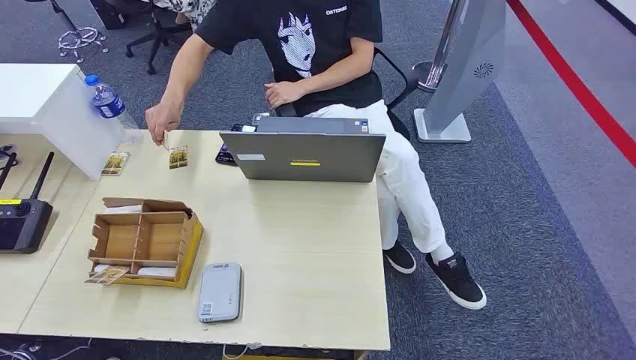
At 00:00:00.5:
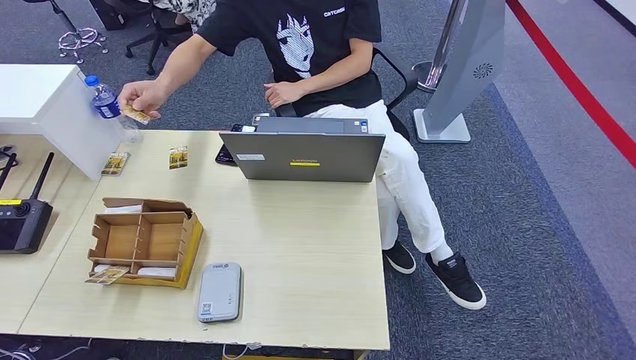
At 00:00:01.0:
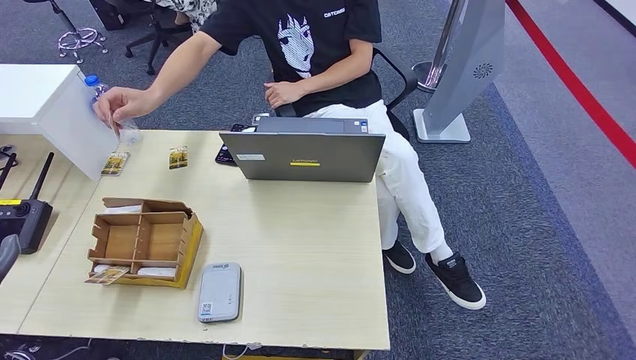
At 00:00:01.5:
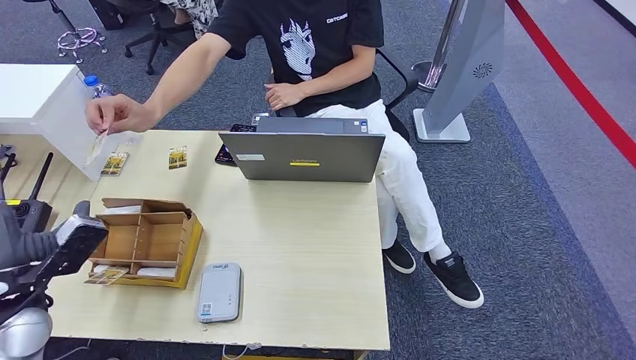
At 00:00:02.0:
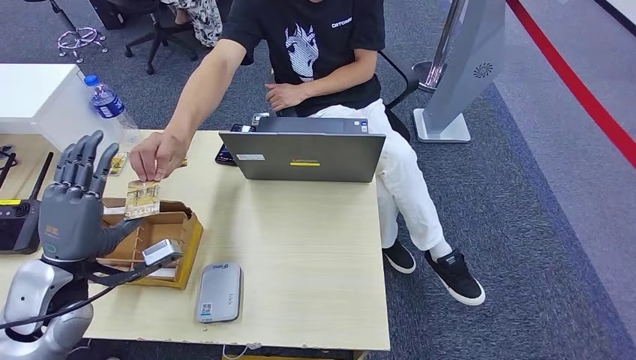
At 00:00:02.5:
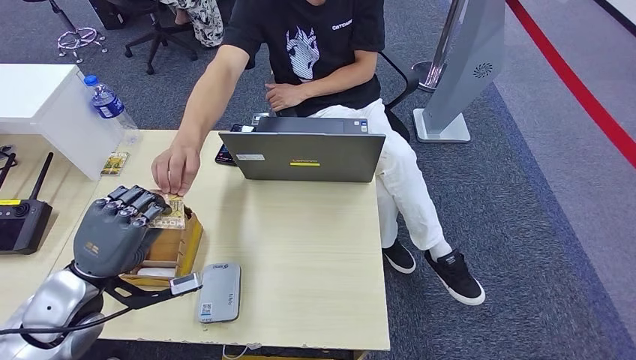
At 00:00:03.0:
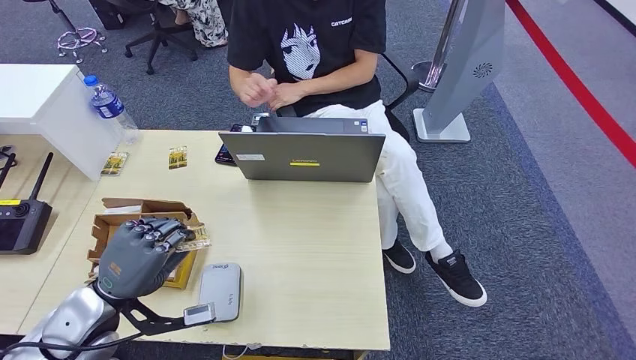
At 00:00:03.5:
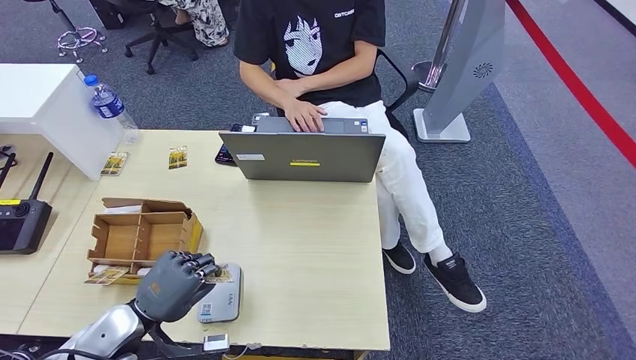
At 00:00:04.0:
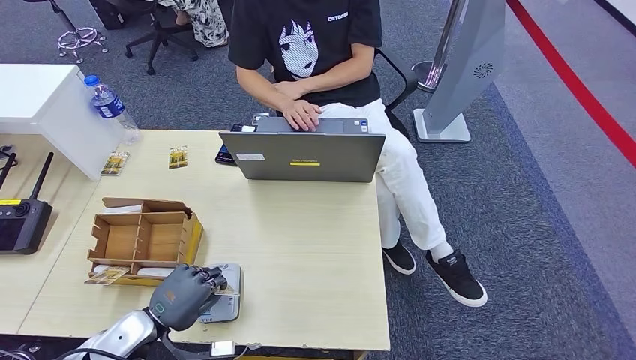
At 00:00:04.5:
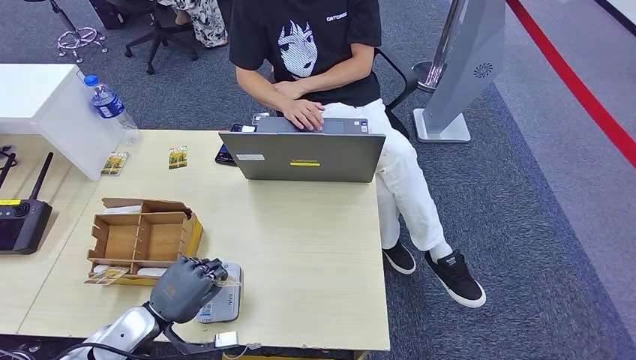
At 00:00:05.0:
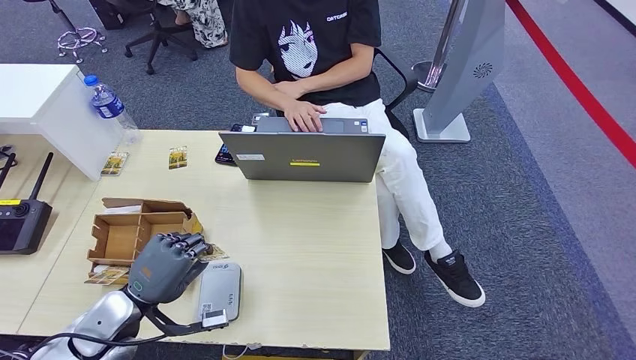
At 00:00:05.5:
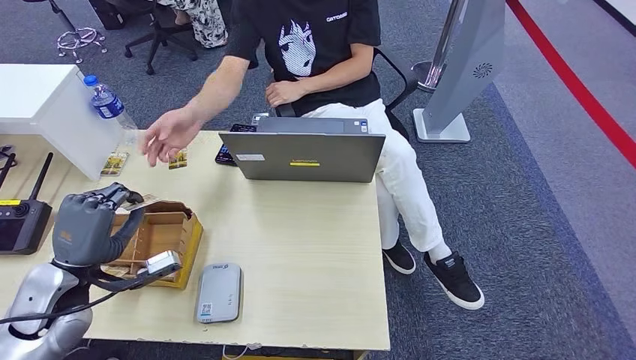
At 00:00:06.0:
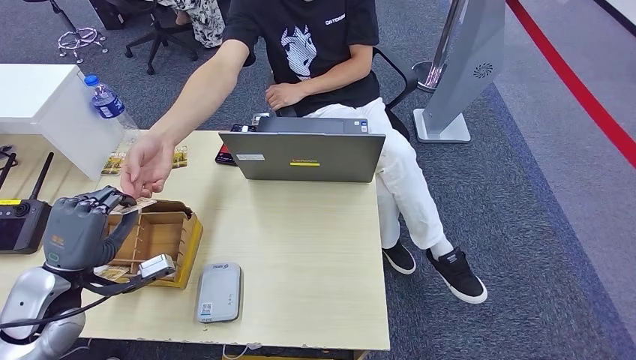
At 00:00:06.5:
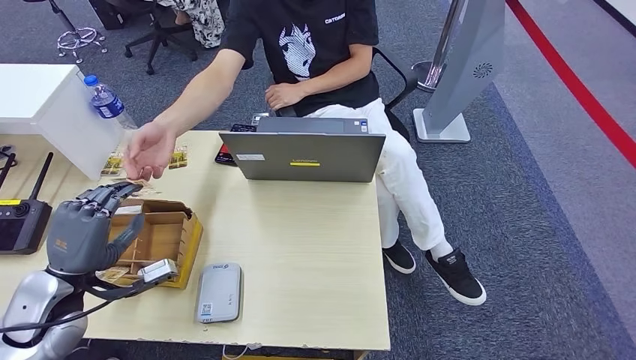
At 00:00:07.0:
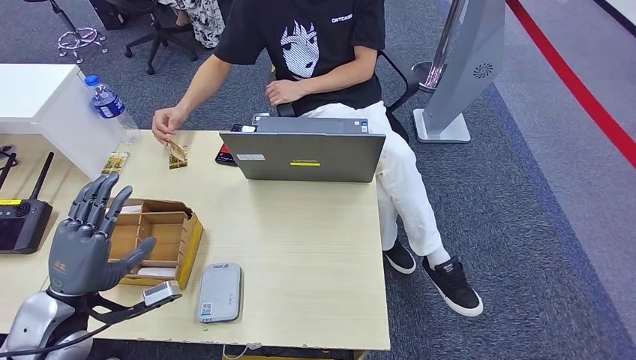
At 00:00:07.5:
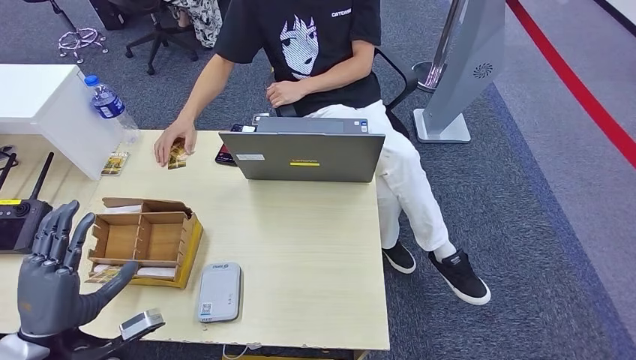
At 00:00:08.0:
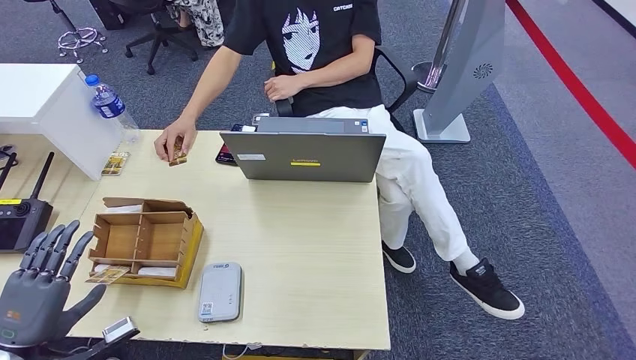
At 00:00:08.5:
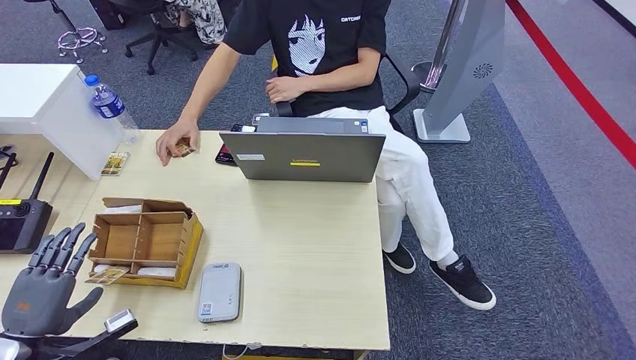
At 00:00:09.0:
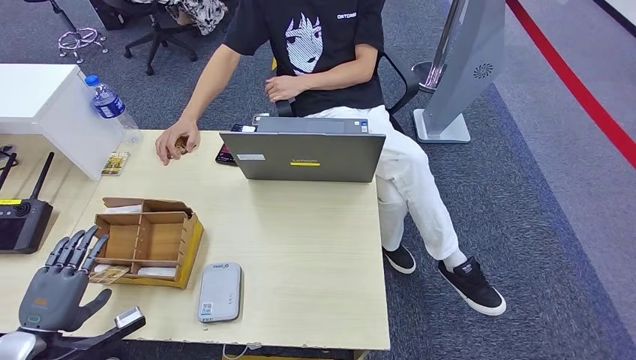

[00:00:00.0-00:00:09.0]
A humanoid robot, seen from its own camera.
Step, 00:00:00.0 to 00:00:02.5: Take the ID card from the person's hand.
Step, 00:00:03.0 to 00:00:03.5: Place the ID card on the card reader.
Step, 00:00:04.5 to 00:00:07.0: Hand the ID card to the person.
00:00:02.0 to 00:00:04.5: The left hand moves downward, some 15 cm.
00:00:04.5 to 00:00:07.0: The left hand heads upward and to the left, covering roughly 10 cm.
00:00:07.0 to 00:00:09.0: The left hand goes some 15 cm to the left, downward and backward.

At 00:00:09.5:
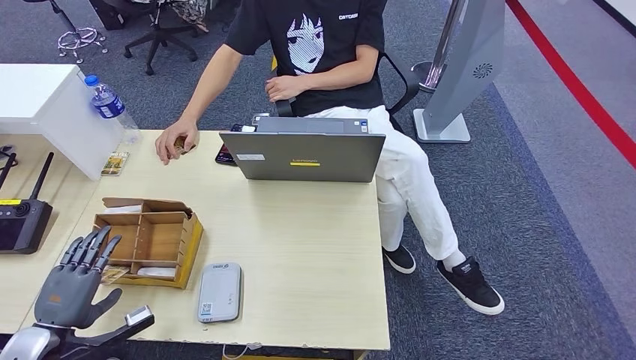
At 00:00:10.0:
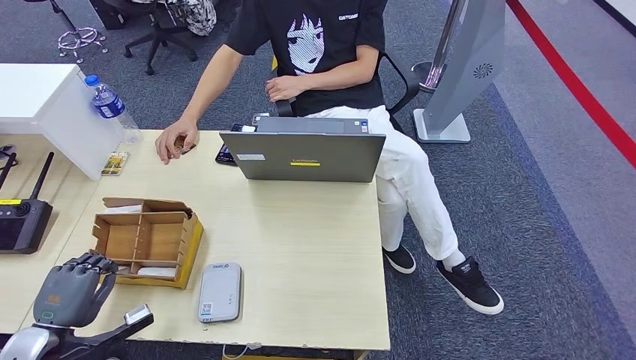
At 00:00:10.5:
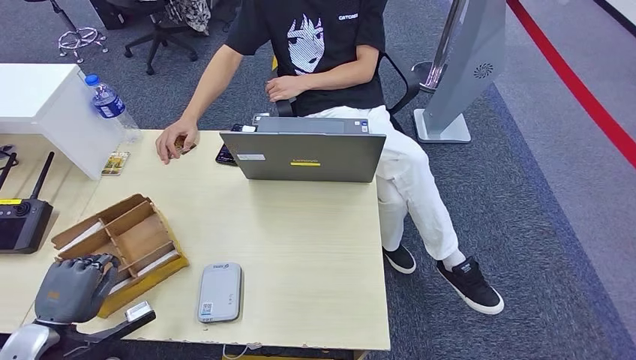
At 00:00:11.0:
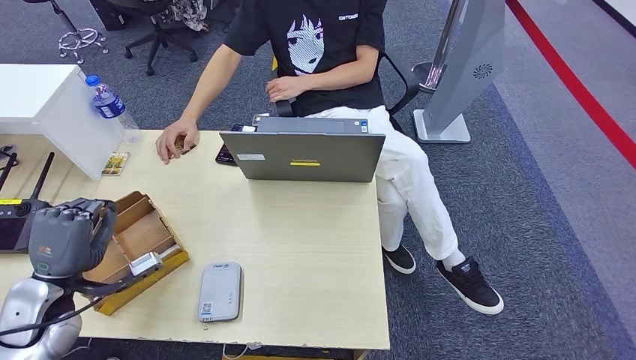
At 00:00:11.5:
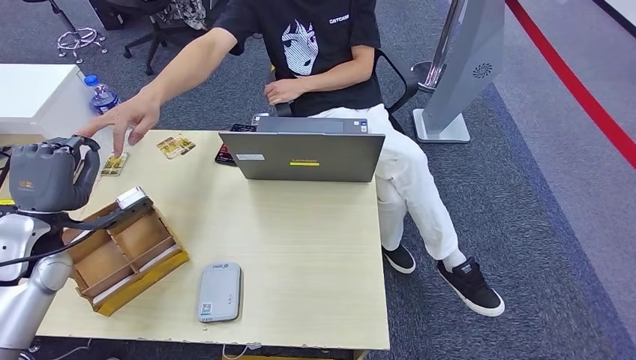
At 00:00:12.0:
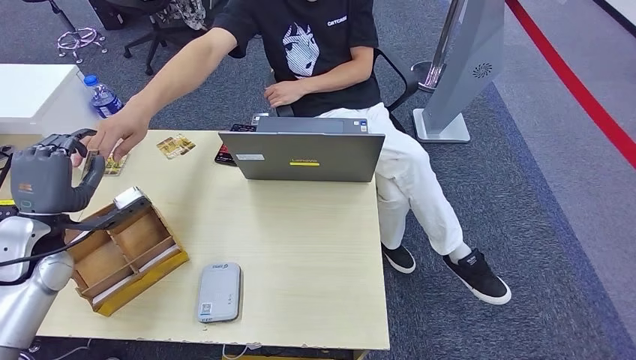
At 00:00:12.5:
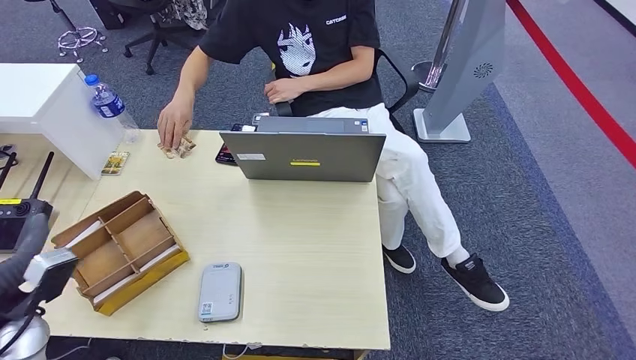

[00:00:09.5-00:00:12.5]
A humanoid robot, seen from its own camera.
Step, 00:00:11.5 to 00:00:12.5: Hand the room key to the person.
00:00:09.5 to 00:00:11.0: The left hand moves upward and forward, about 10 cm.
00:00:11.0 to 00:00:12.5: The left hand goes forward and returns, about 10 cm each way.
